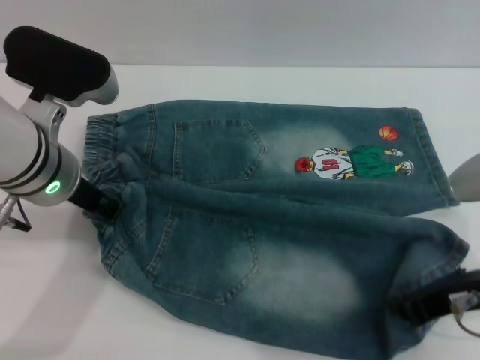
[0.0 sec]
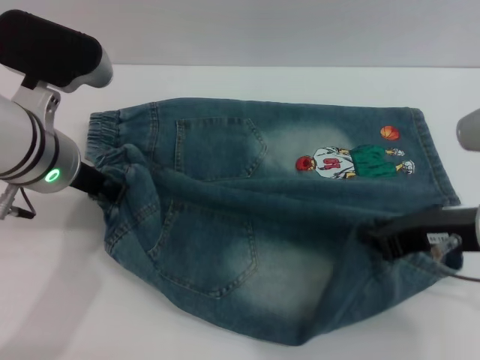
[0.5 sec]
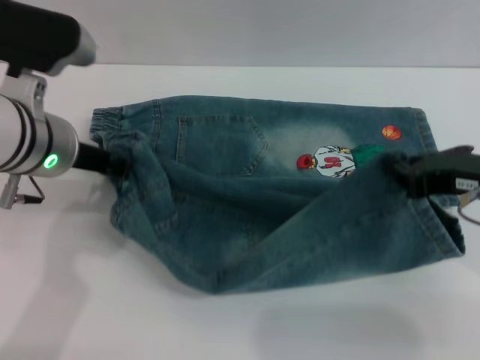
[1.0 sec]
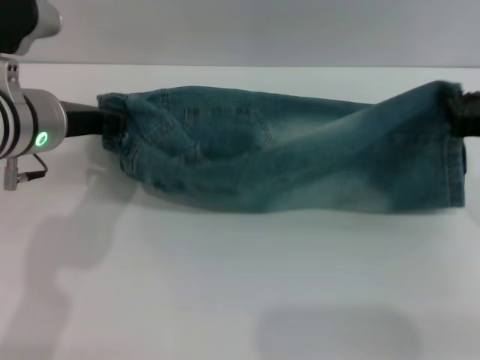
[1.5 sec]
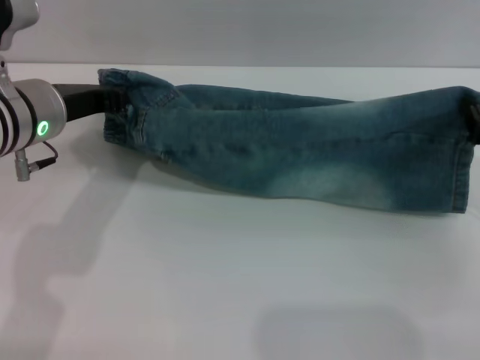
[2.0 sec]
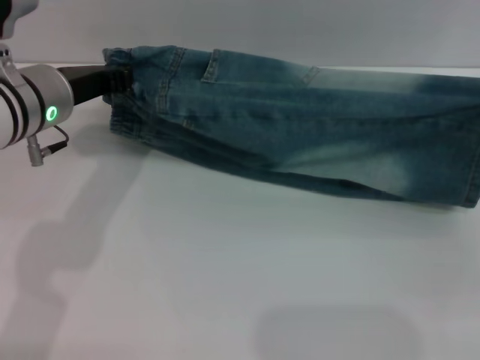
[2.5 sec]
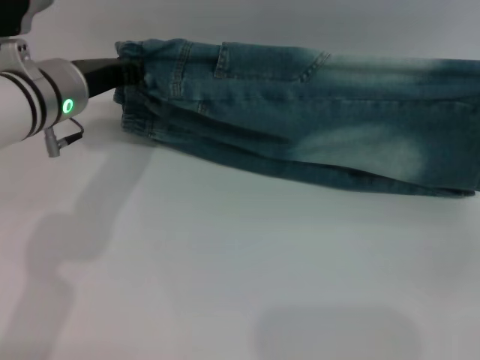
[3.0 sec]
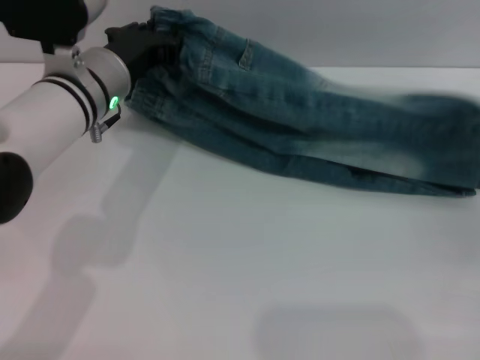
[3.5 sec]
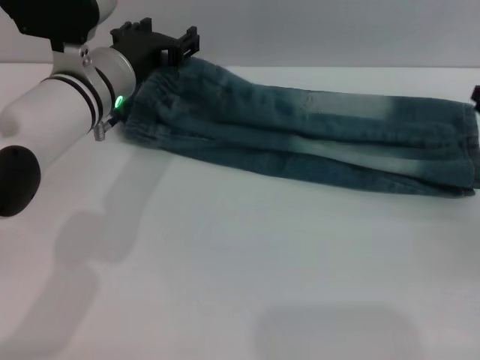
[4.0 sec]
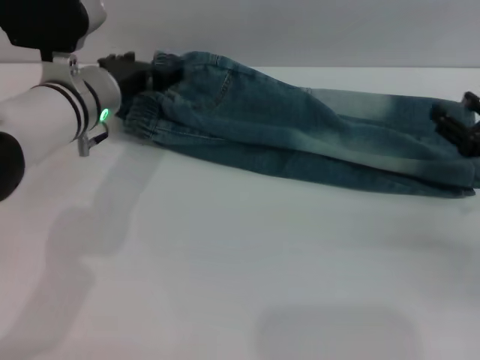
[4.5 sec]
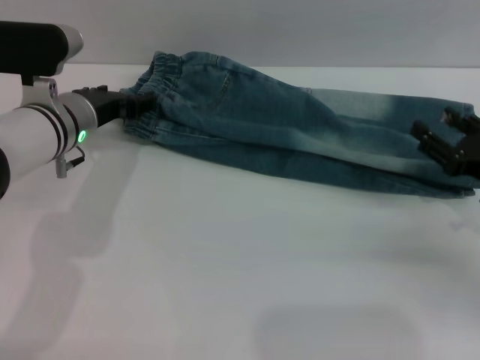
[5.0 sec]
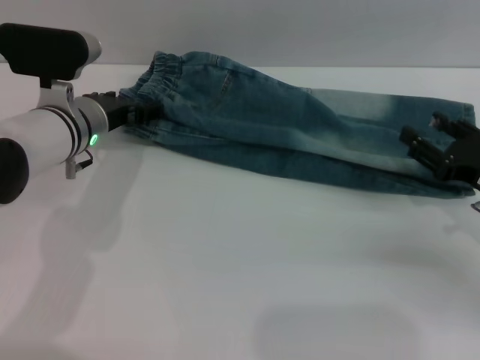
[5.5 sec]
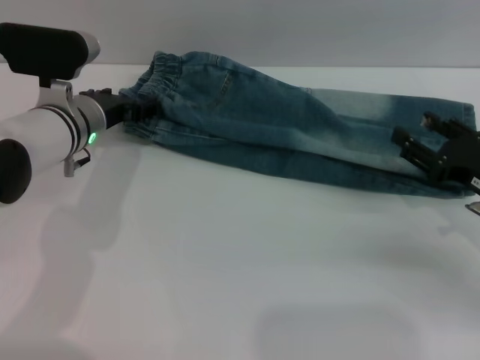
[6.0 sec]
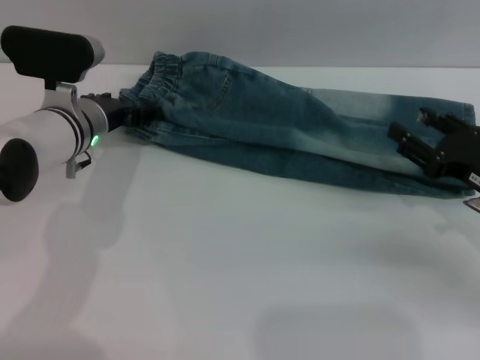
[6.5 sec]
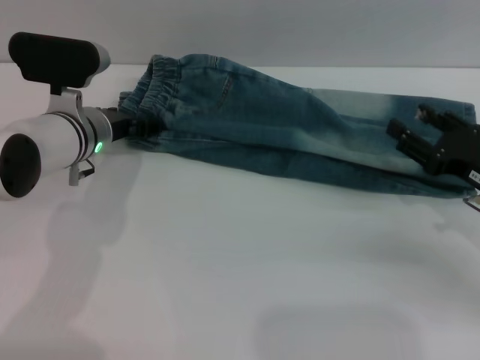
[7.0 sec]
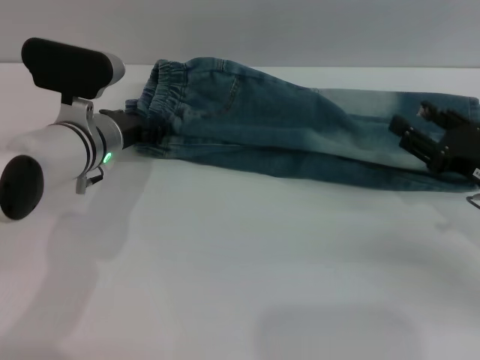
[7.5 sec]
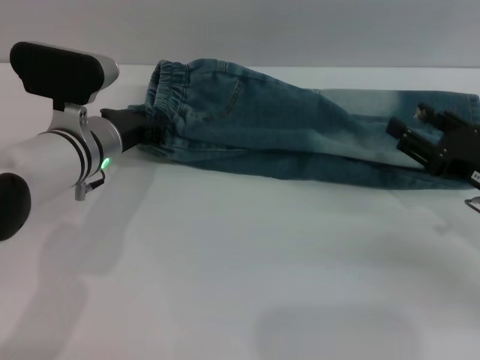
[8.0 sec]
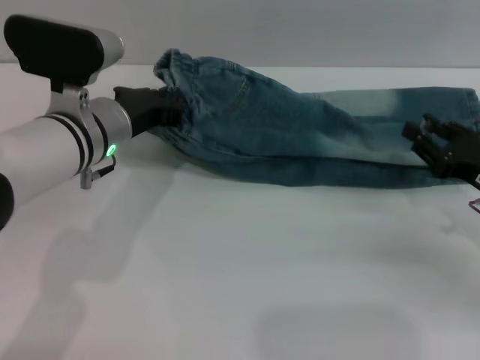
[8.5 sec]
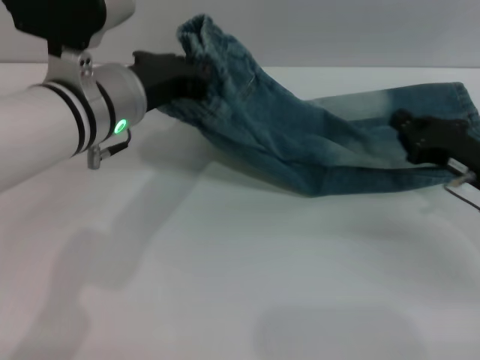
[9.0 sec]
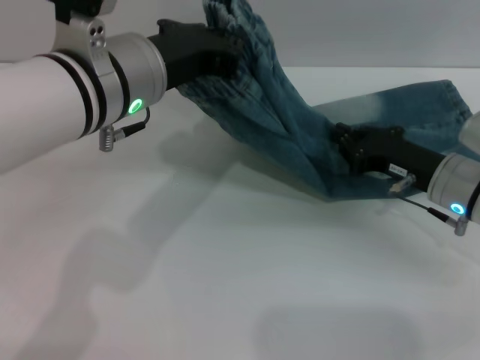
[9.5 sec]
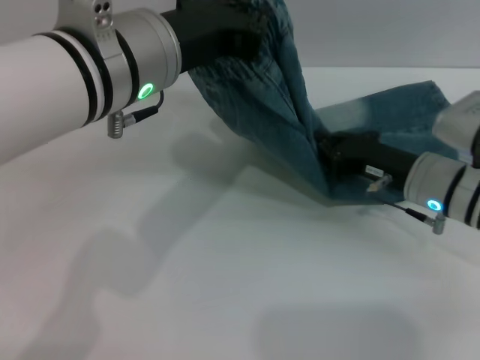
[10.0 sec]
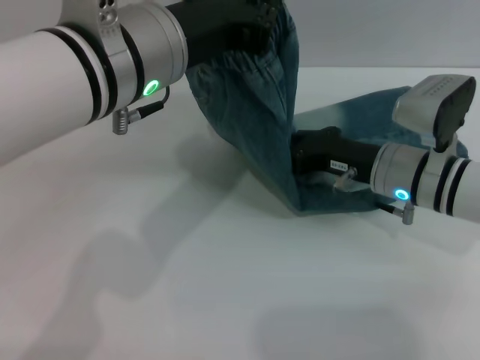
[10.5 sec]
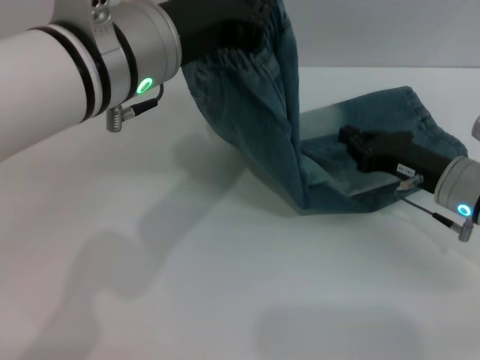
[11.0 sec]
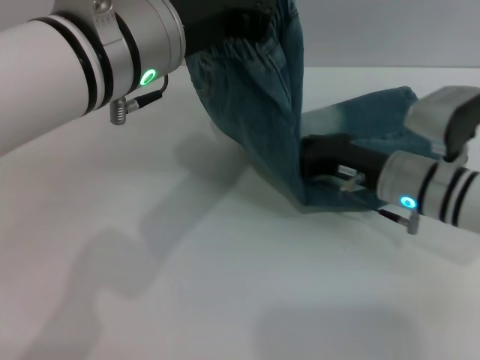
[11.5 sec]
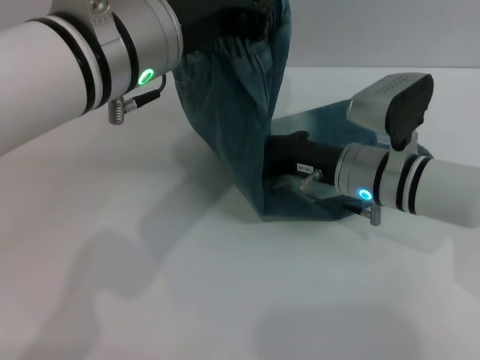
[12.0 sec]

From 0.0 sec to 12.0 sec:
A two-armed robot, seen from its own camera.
Step, from 0.0 sec to 4.5 sec: Fold the bottom of the pants upward with both grippers.
From 0.0 sec to 2.0 sec: The right gripper shifts approximately 10 cm to the right and forward.
From 2.0 sec to 4.0 sec: The left gripper is displaced forward and to the right by about 5 cm, and opens. The right gripper moves some 5 cm, and opens its fingers.
From 4.0 sec to 6.0 sec: The right gripper moves about 5 cm; the left gripper travels downward by approximately 5 cm.
From 6.0 sec to 8.0 sec: The left gripper closes.
From 8.0 sec to 10.0 sec: The left gripper shifts roughly 20 cm upward, to the right and backward, while the right gripper shifts about 10 cm to the left and forward, and closes up.
From 10.0 sec to 12.0 sec: The right gripper heads to the left, covering approximately 5 cm.

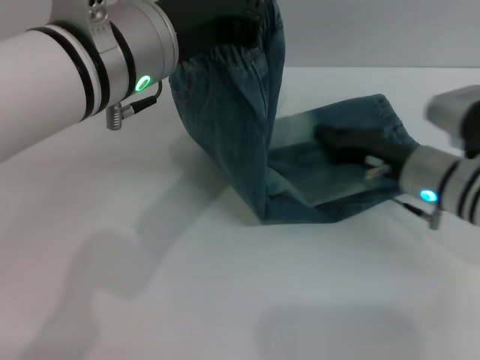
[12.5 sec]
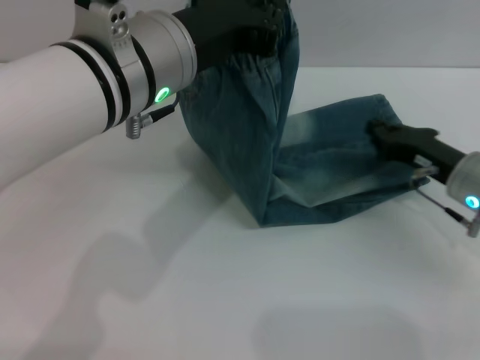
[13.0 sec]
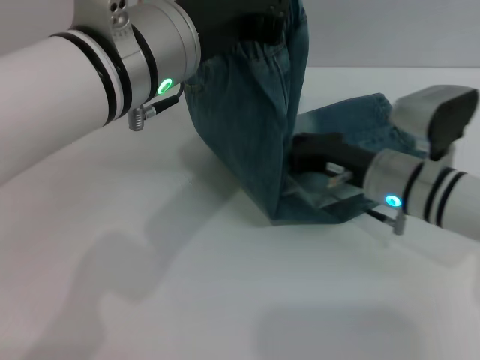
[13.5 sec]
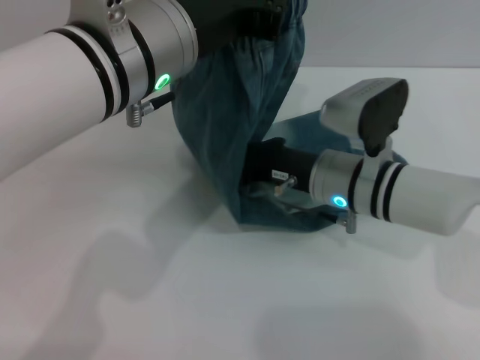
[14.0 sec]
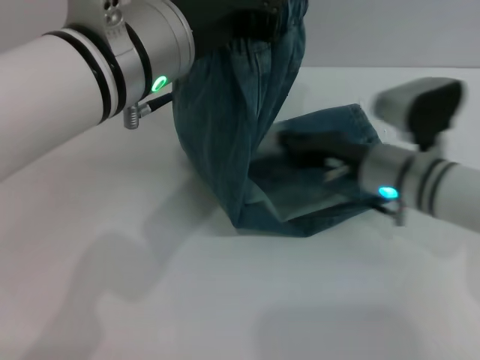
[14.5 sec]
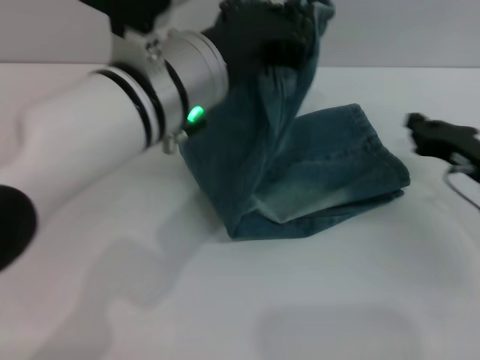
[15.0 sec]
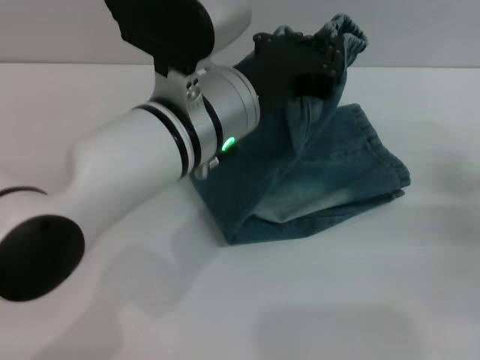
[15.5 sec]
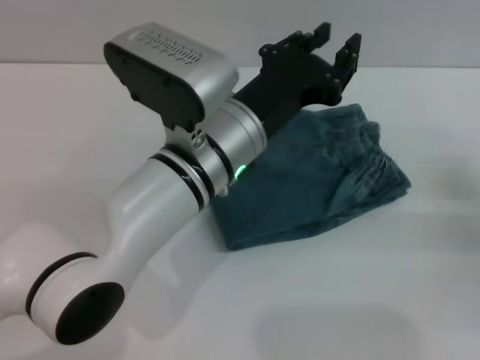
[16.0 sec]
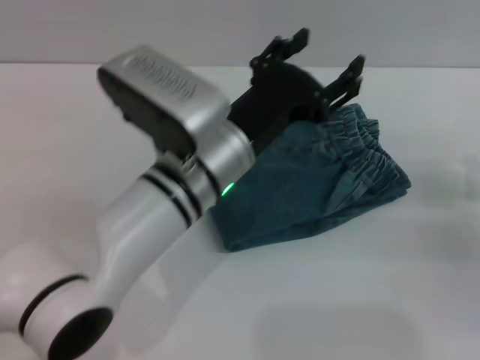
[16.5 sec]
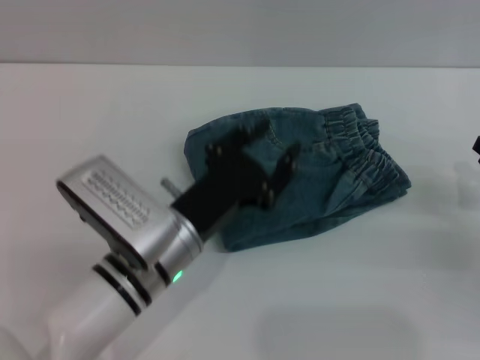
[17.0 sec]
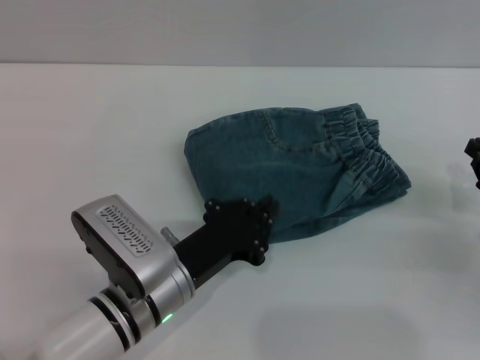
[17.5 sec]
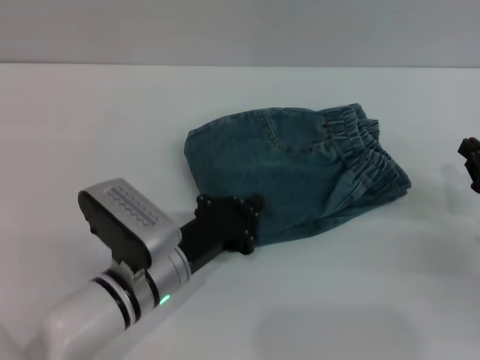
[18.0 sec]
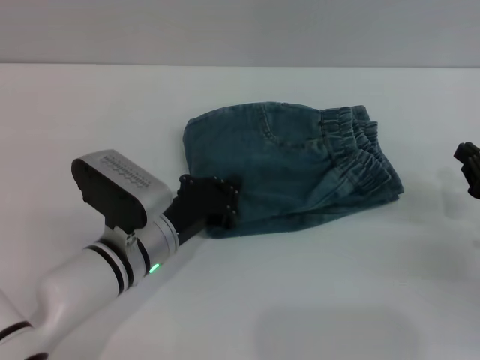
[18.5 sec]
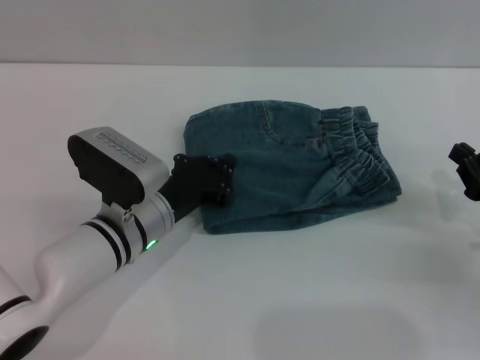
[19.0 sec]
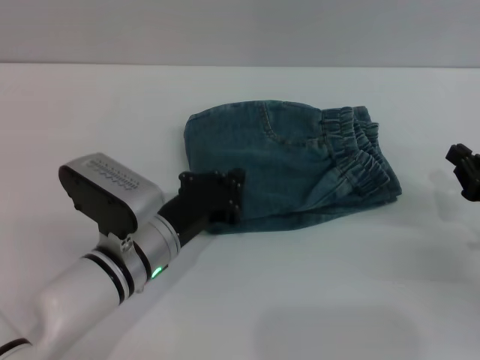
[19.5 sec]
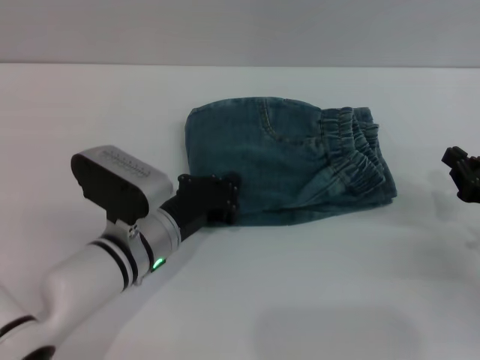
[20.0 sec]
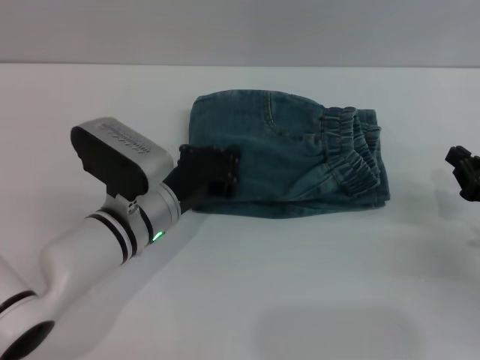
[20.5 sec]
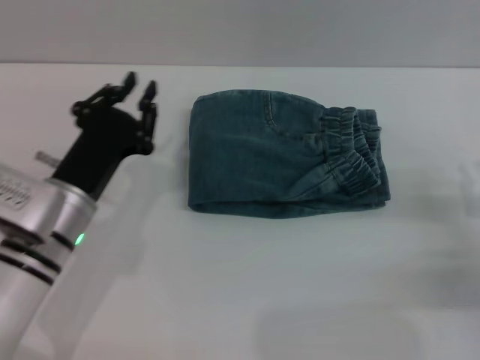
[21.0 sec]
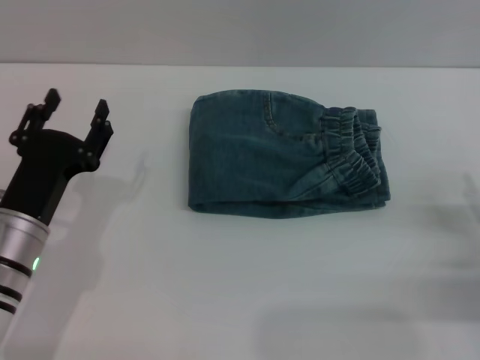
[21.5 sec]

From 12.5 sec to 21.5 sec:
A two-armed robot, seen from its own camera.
Step, from 12.5 sec to 16.5 sec: Fold the pants from left to right with the left gripper.
Step, from 17.0 sec to 19.0 sec: Place the folded trousers onto the center area with the left grippers.
From 12.5 sec to 14.5 sec: The right gripper swings left and right, about 15 cm each way, with 2 reversals.
From 14.5 sec to 17.0 sec: The right gripper shifts some 20 cm to the right and backward. The left gripper goes approximately 20 cm downward, and opens its fingers.
From 17.0 sec to 19.5 sec: The left gripper closes up.
From 19.5 sec to 21.5 sec: The left gripper travels to the left by approximately 10 cm, and opens its fingers; the right gripper opens.

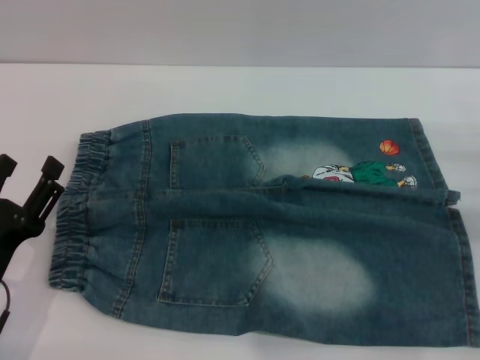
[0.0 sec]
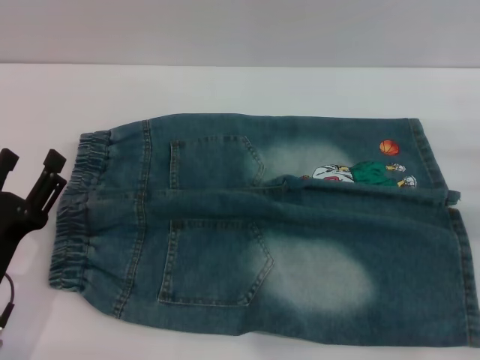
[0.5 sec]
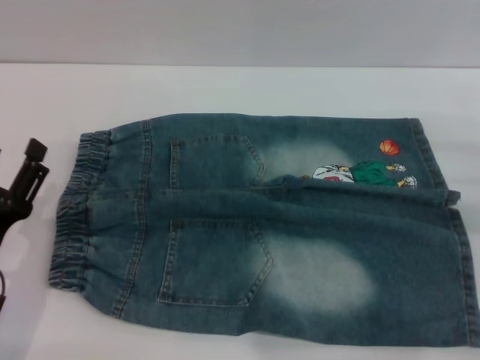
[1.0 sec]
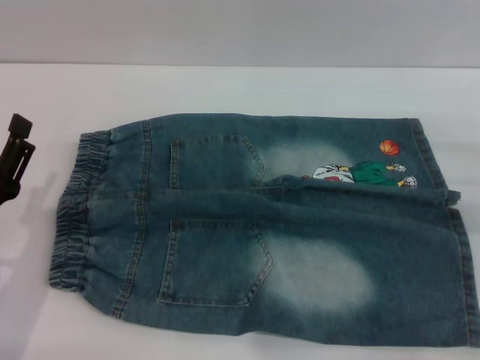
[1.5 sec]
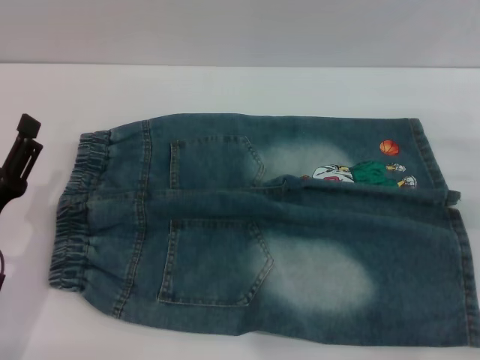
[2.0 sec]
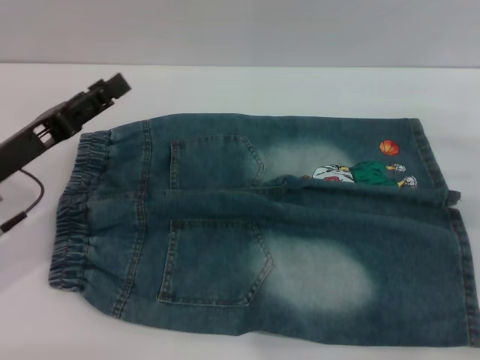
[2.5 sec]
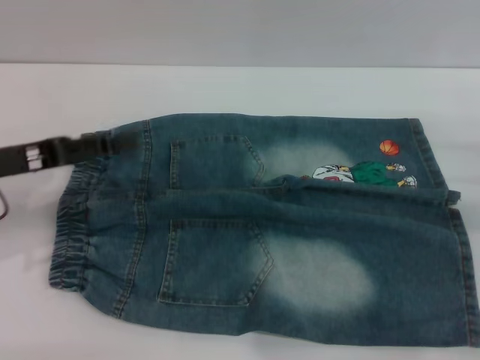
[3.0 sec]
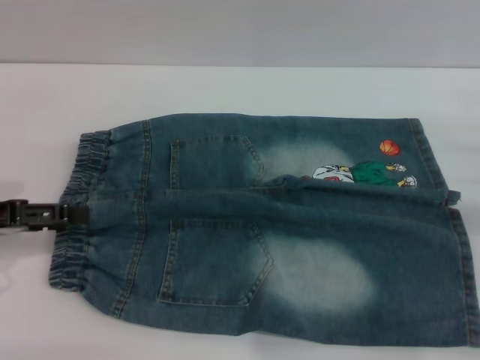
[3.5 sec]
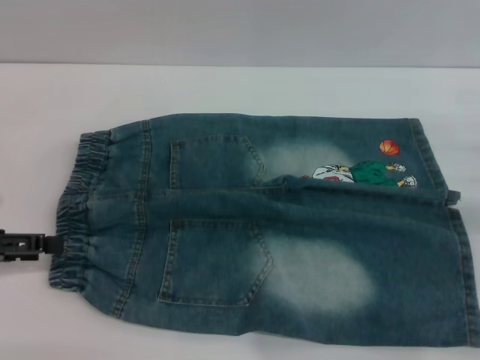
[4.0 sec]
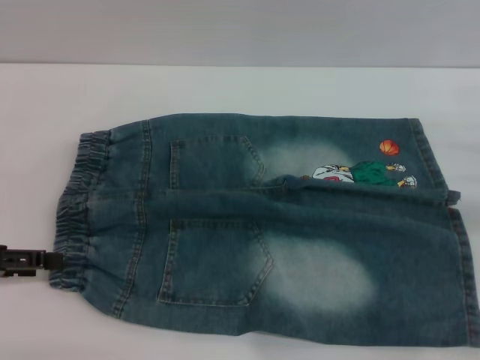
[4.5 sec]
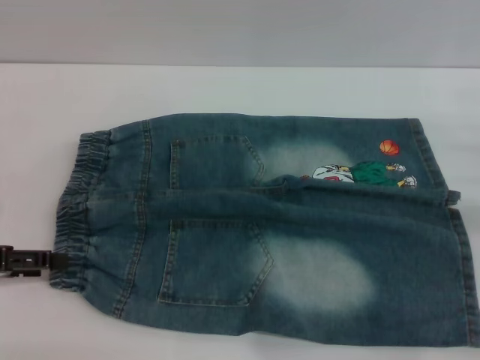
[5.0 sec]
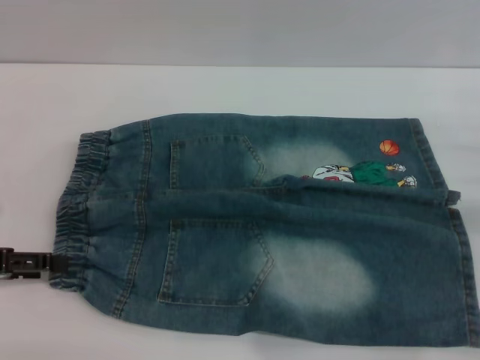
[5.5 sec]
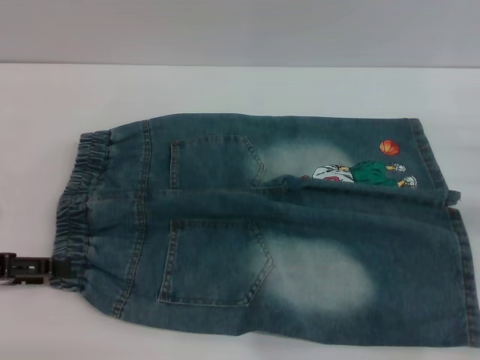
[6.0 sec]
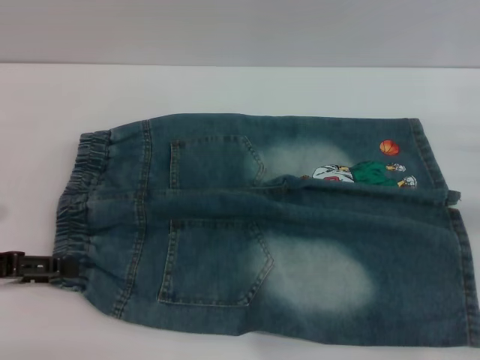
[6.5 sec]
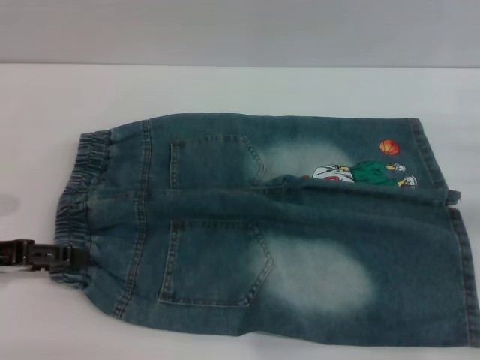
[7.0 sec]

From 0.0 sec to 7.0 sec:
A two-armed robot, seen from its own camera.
From 0.0 sec to 2.0 sec: The grippers move only a little.
From 2.0 sec to 3.5 sec: The left gripper goes roughly 15 cm upward, forward and to the left.
From 3.5 sec to 7.0 sec: There are only small adjustments of the grippers.
